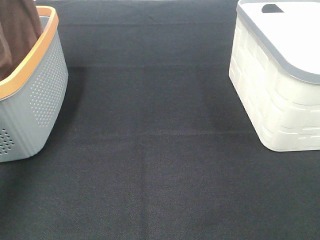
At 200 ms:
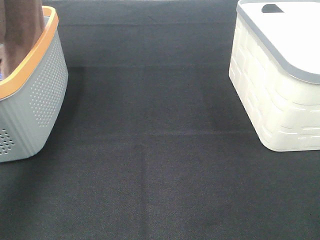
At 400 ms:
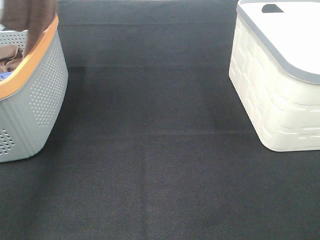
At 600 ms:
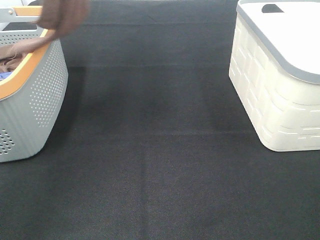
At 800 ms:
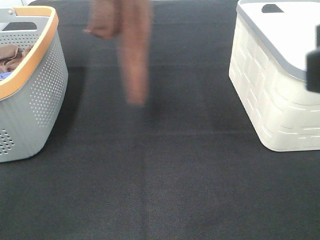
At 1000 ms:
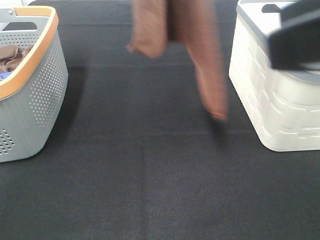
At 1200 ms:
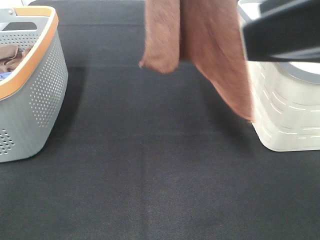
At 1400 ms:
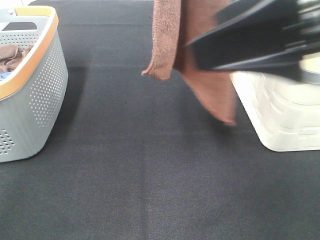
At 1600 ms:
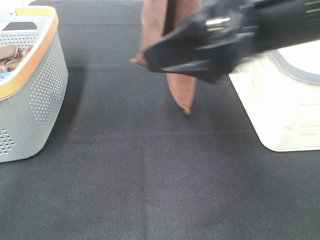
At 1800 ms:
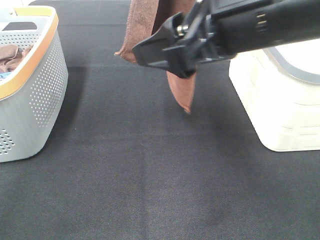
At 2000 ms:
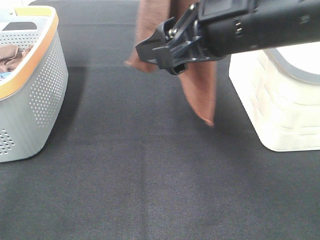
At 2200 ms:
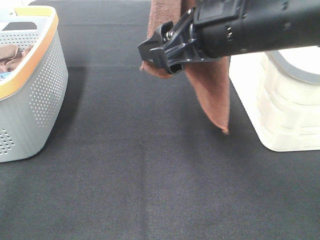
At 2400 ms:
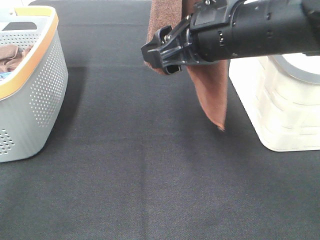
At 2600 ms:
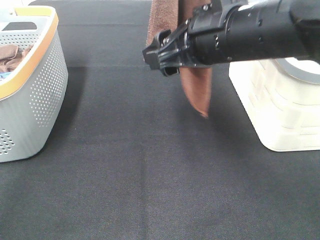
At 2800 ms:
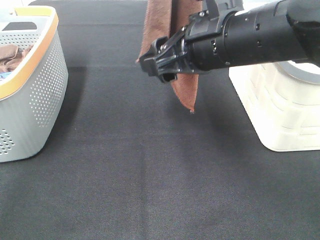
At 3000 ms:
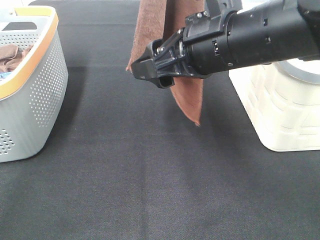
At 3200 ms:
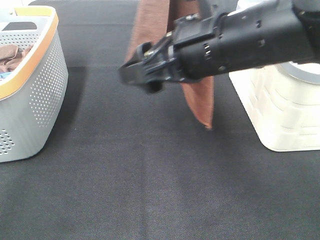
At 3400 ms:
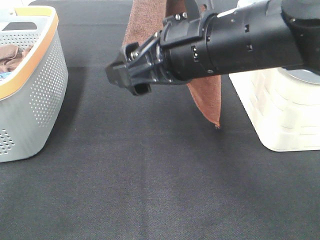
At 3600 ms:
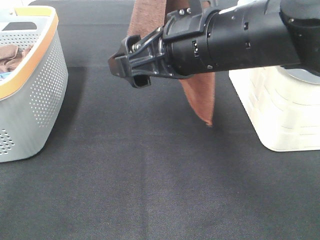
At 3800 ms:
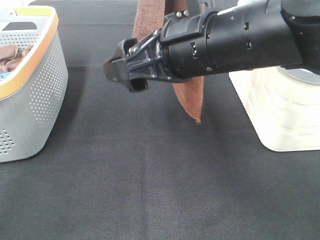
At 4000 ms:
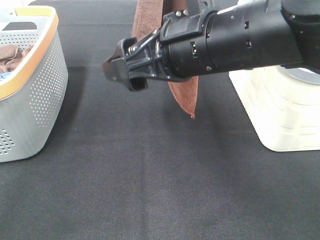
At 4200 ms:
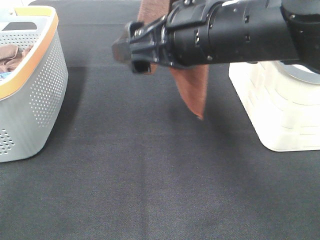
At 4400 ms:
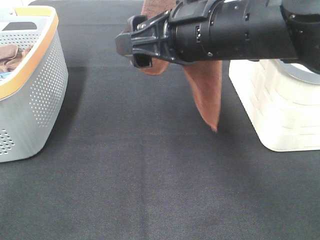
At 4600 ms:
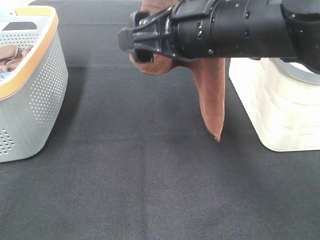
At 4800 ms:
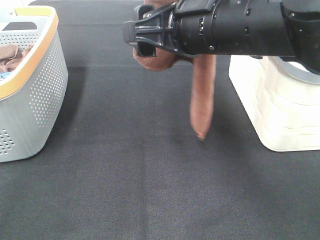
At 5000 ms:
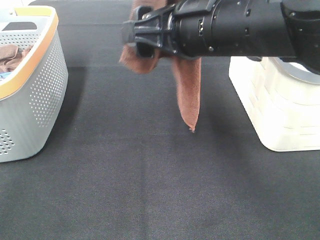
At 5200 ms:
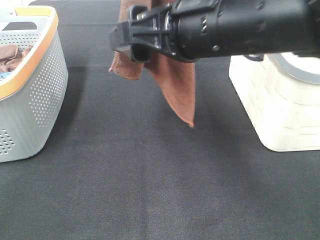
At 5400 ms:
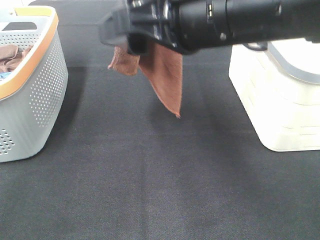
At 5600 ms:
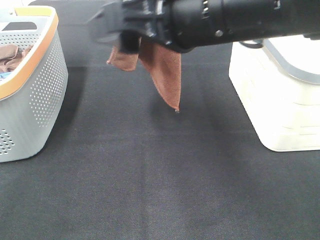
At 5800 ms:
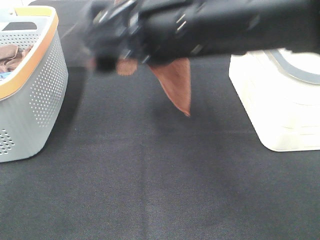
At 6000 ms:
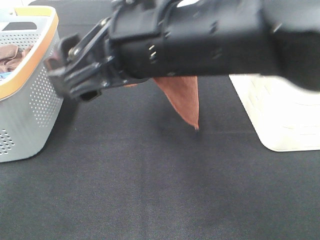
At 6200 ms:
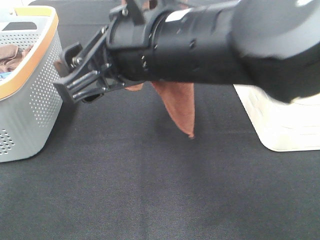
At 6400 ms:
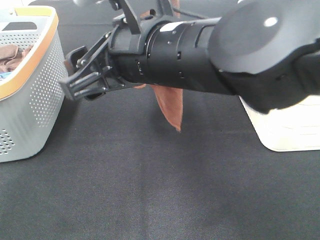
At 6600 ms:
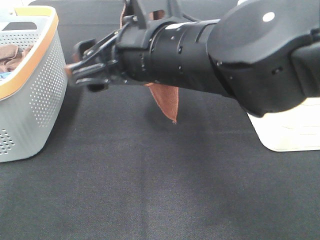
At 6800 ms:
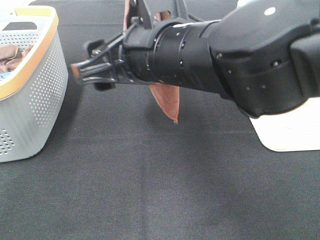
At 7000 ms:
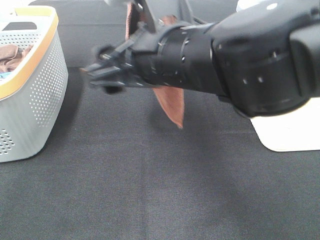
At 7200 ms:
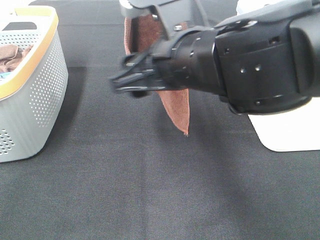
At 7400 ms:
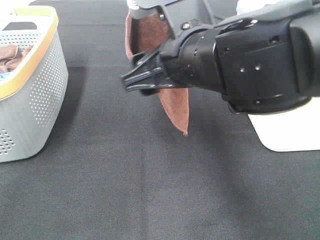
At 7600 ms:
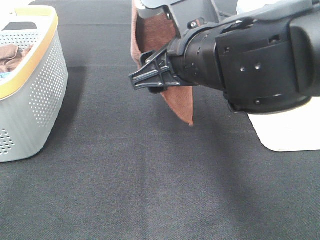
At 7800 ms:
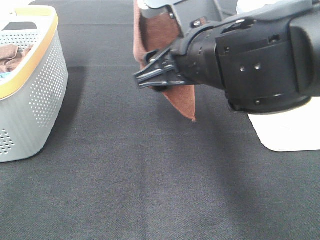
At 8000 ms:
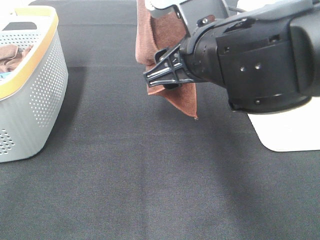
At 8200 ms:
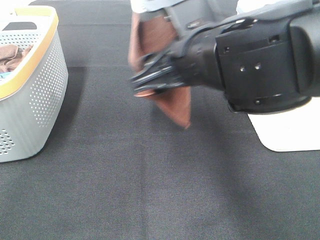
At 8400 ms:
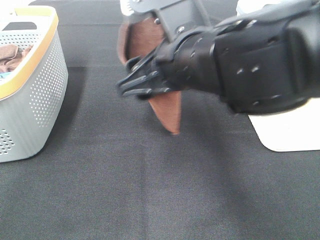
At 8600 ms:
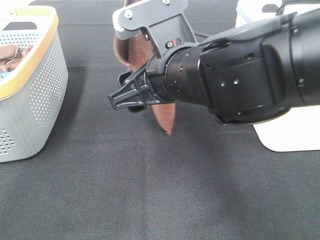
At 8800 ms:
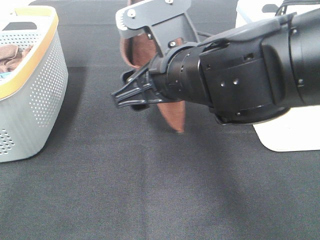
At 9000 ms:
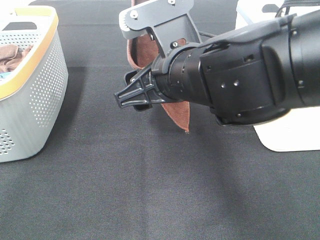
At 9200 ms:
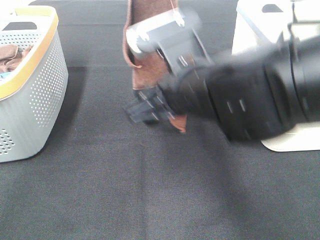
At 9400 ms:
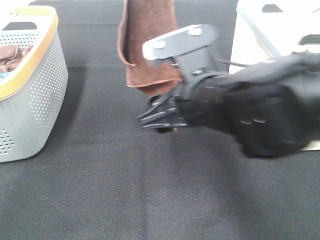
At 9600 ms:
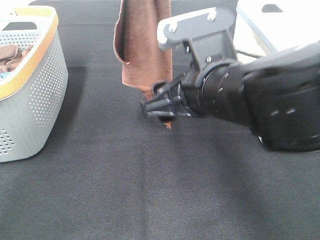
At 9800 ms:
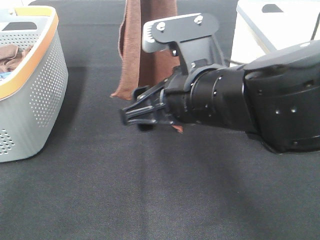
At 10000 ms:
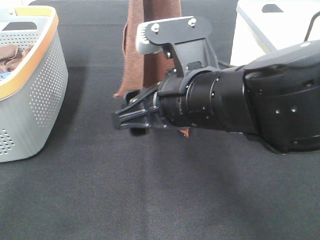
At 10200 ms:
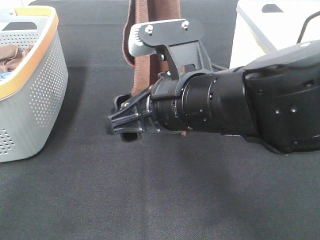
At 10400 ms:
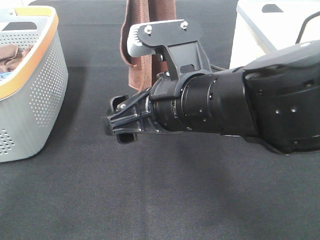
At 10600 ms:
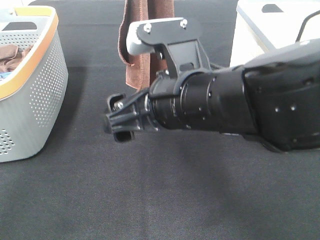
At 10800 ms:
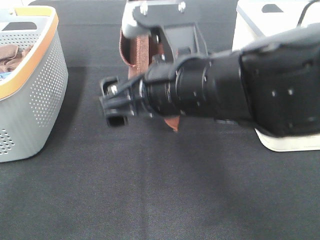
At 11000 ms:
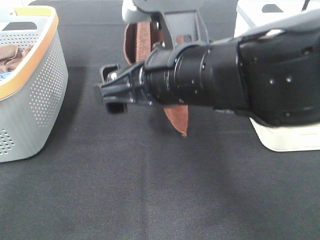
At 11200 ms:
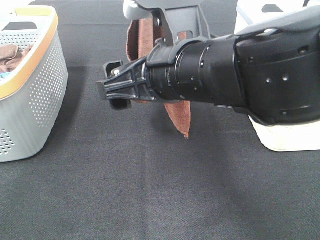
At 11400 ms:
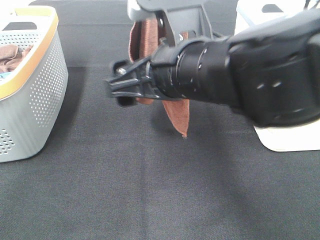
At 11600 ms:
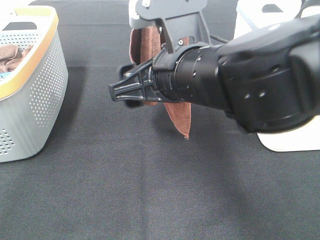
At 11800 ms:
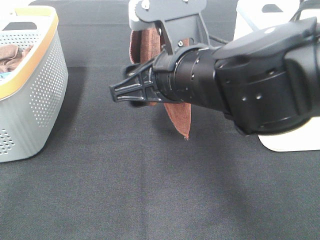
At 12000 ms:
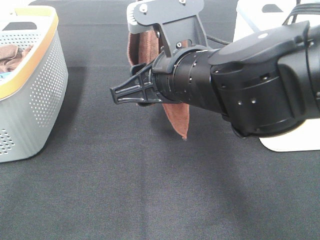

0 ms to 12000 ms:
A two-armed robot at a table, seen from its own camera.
Task of the whole recording: Remove the towel and place it.
Step, 0 ms to 10200 ms: Right hand: grab a corner of the brown towel and straighten it.
0 ms to 1600 ms: The left gripper shifts some 25 cm to the right. Meanwhile the right gripper travels forward and to the left by approximately 25 cm.
1600 ms to 3000 ms: The right gripper travels downward and forward by some 10 cm.
3000 ms to 4400 ms: The grippers move only a little.
4400 ms to 6000 ms: The right gripper shifts about 5 cm to the left and backward.
6000 ms to 7600 ms: The right gripper changes place by approximately 5 cm.
7600 ms to 9000 ms: The grippers make only small movements.
10400 ms to 12000 ms: The right gripper closes its fingers.

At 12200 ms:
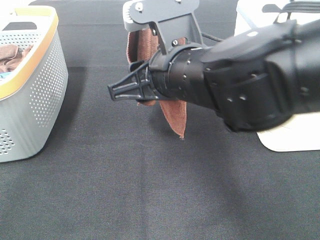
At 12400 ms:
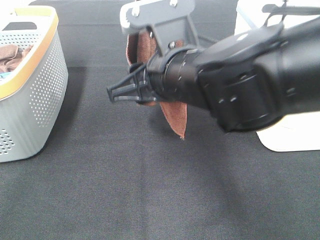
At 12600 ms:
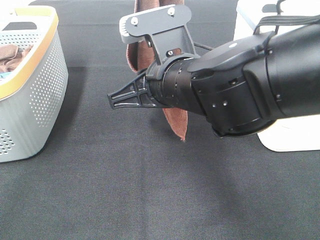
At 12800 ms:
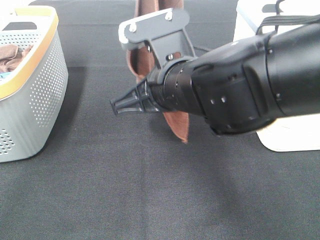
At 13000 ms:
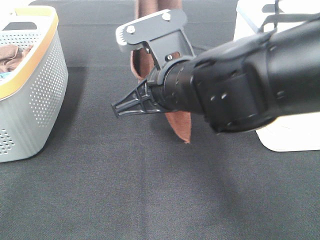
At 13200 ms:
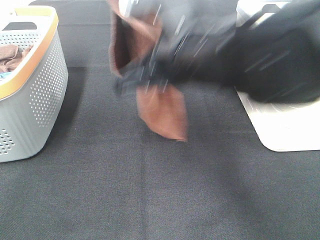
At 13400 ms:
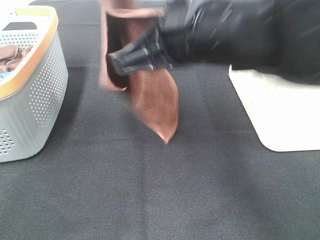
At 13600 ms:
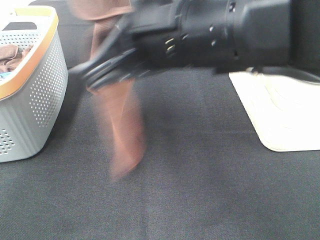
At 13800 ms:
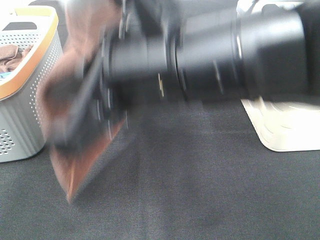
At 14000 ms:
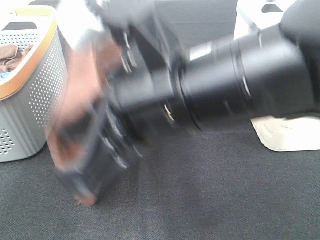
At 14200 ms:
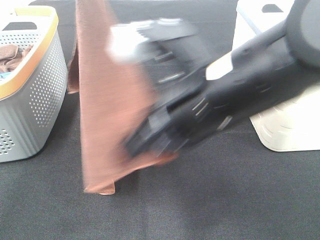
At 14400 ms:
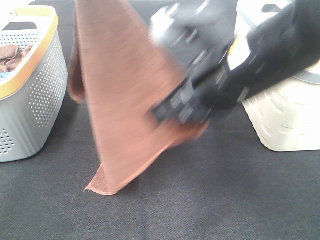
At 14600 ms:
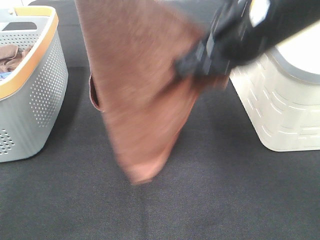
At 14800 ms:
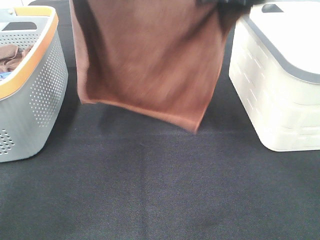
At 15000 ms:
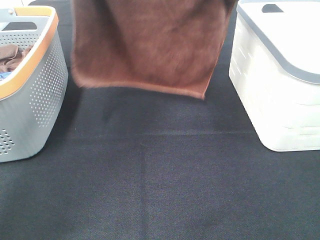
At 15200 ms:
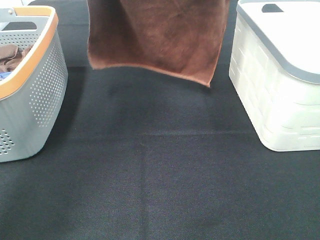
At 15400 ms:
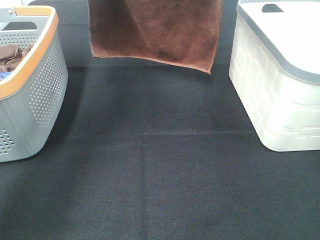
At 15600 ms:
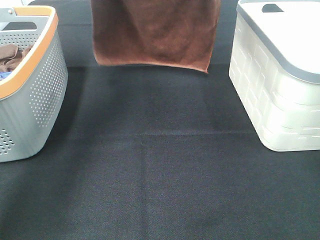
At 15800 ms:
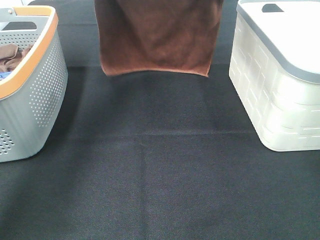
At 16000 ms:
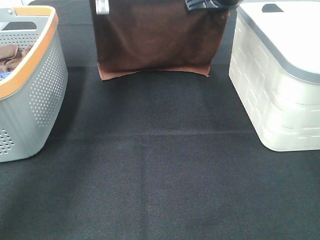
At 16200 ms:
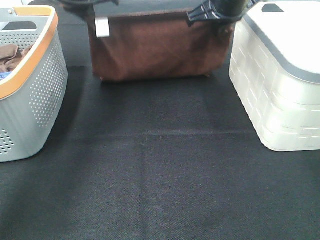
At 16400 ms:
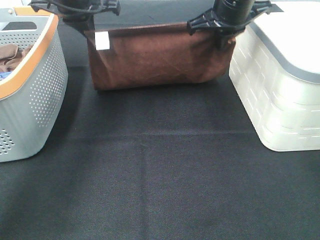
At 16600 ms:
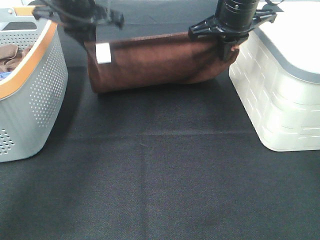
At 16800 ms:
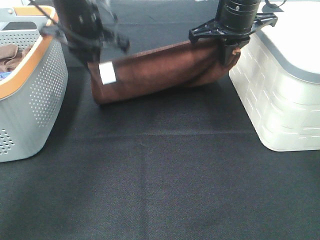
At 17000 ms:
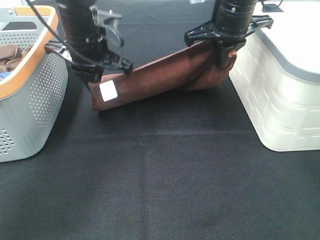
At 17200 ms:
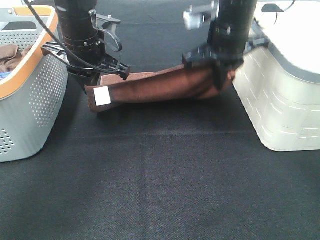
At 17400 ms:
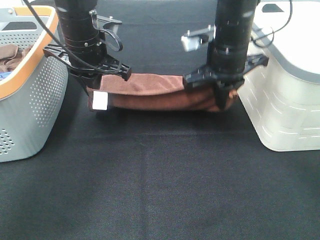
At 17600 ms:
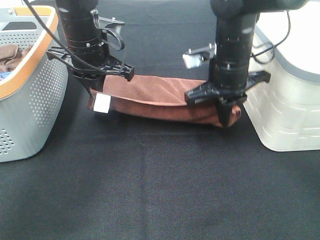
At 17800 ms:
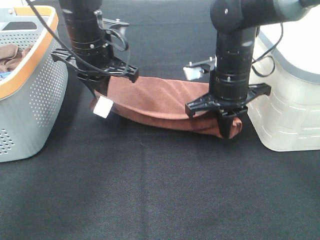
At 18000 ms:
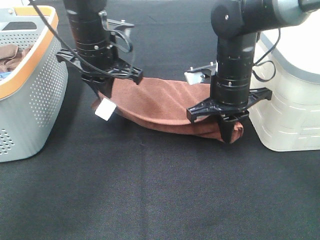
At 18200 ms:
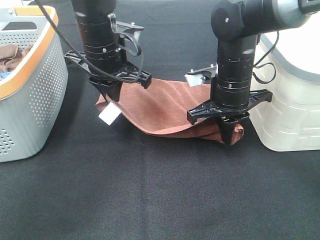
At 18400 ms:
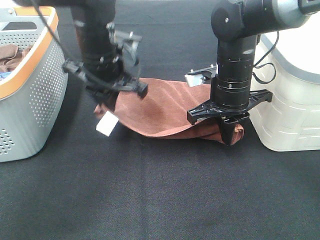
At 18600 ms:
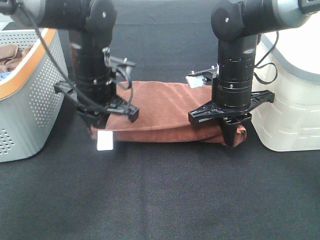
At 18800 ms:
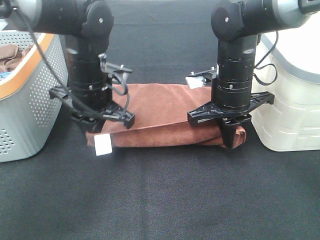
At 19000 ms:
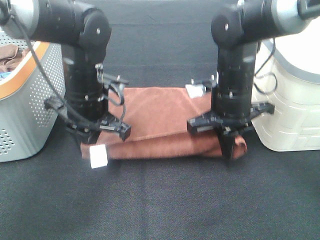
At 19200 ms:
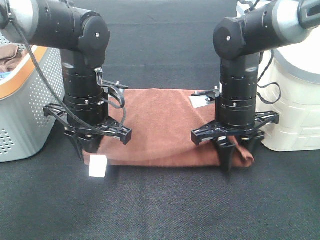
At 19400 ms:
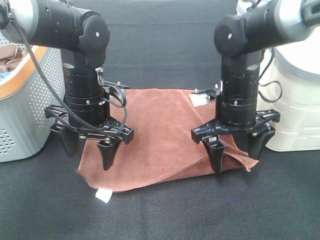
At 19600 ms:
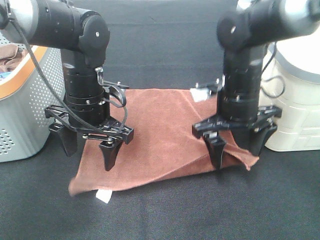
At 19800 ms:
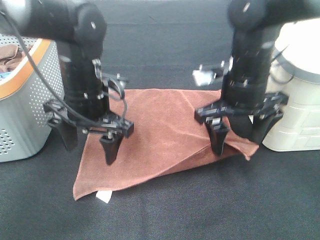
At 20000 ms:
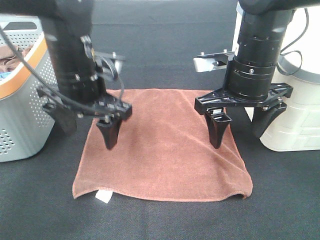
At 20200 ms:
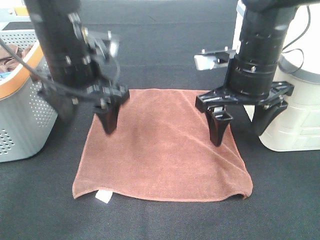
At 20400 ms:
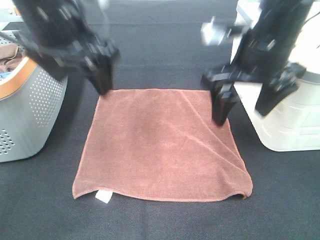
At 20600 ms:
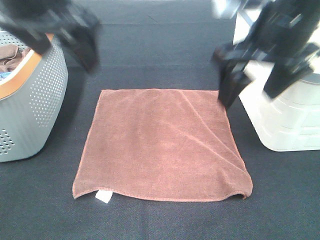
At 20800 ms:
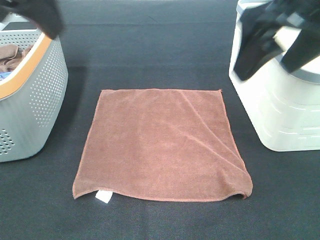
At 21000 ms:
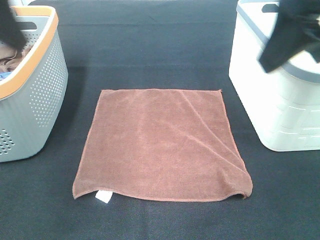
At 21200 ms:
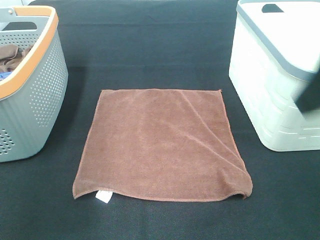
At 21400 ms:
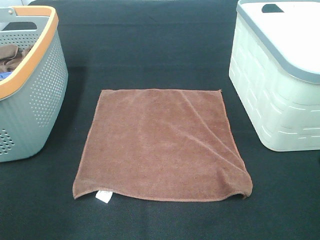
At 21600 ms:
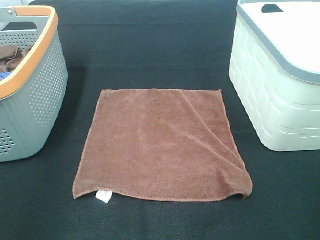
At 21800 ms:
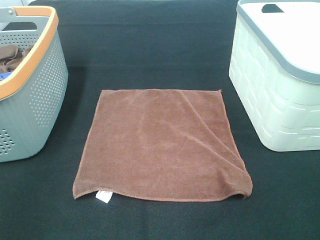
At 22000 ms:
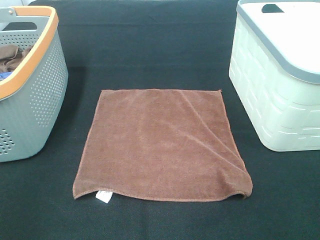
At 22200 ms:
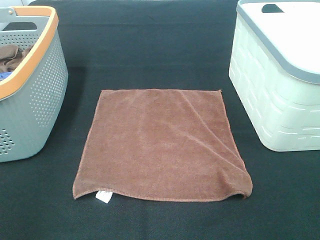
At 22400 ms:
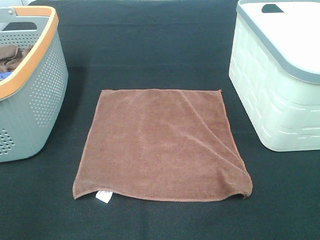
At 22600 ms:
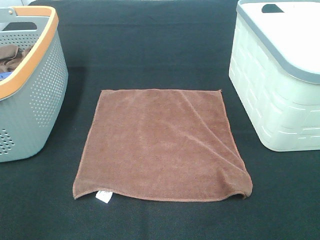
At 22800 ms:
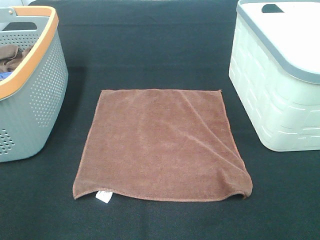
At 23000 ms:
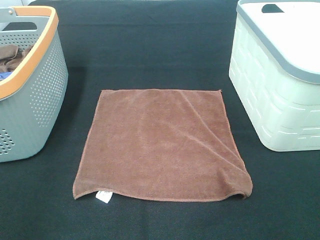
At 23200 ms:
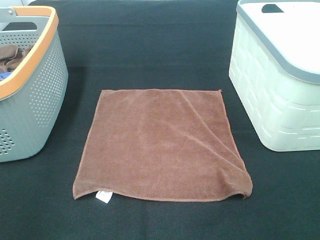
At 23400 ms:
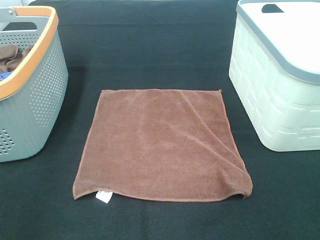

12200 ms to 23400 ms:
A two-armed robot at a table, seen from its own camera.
Task of the whole recording: Remove the towel and place it.
12200 ms to 13800 ms: The right gripper shifts about 5 cm backward, and closes.
13800 ms to 15400 ms: The left gripper heads forward, to the left and downward, covering roughly 20 cm; the right gripper travels forward by roughly 30 cm.
15400 ms to 17000 ms: The right gripper travels downward by approximately 10 cm, while the left gripper moves downward and backward, about 20 cm.
17000 ms to 18600 ms: The right gripper shifts roughly 10 cm downward and backward. Meanwhile the left gripper ends up approximately 5 cm from where it was.
18600 ms to 20200 ms: The grippers both shift upward by roughly 5 cm. The right gripper opens up; the left gripper opens its fingers.
20200 ms to 21800 ms: The left gripper heads backward and to the left, covering approximately 30 cm. Meanwhile the right gripper moves backward and to the right, about 25 cm.
